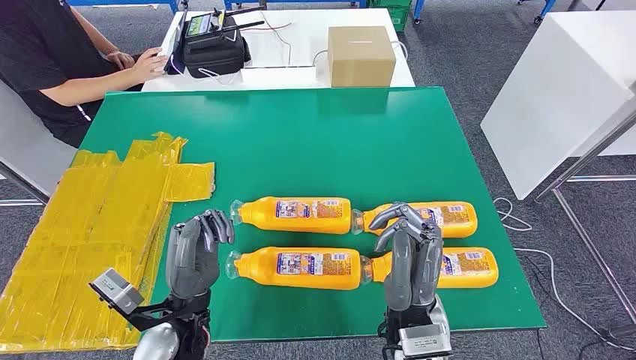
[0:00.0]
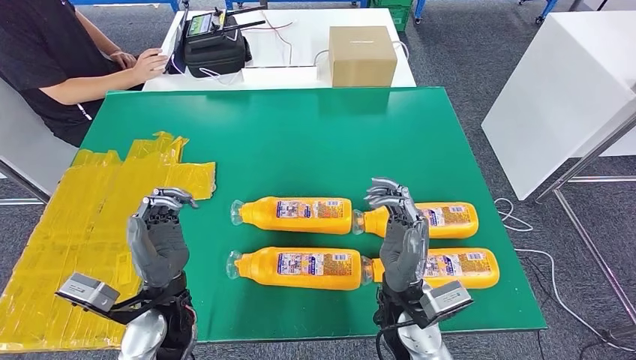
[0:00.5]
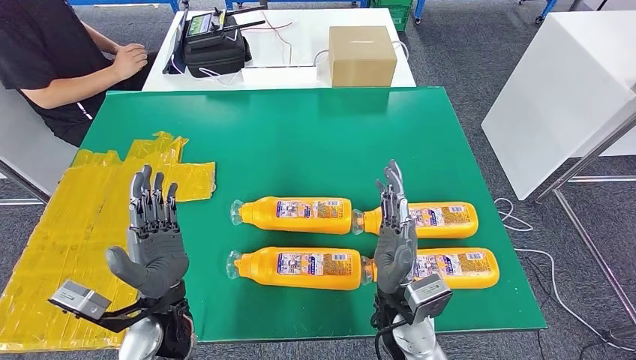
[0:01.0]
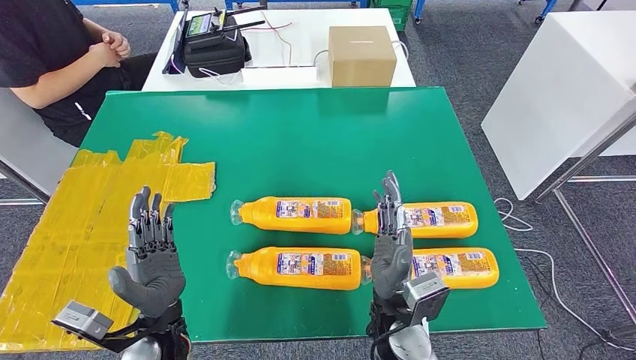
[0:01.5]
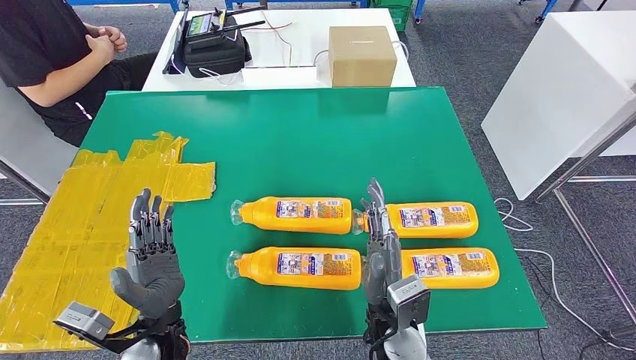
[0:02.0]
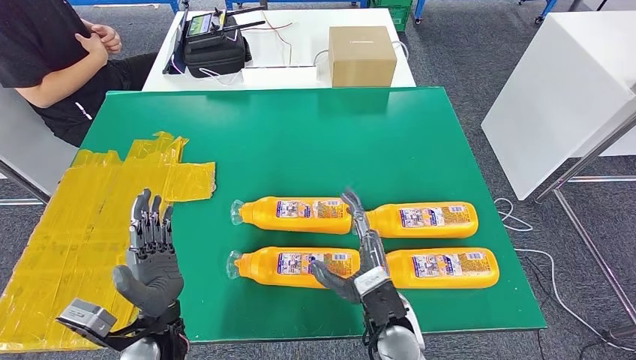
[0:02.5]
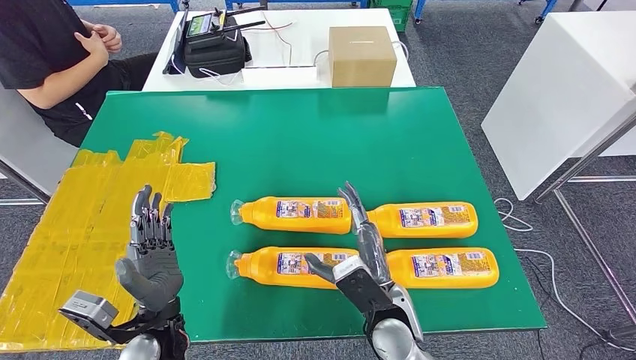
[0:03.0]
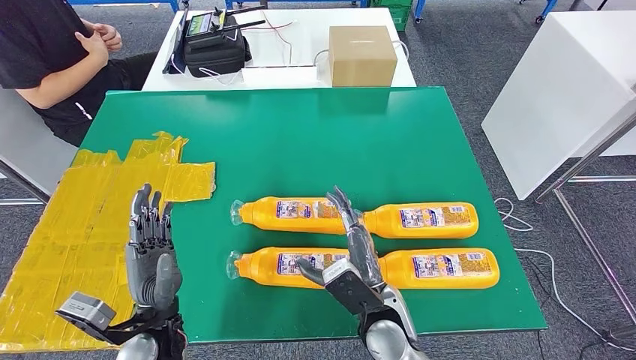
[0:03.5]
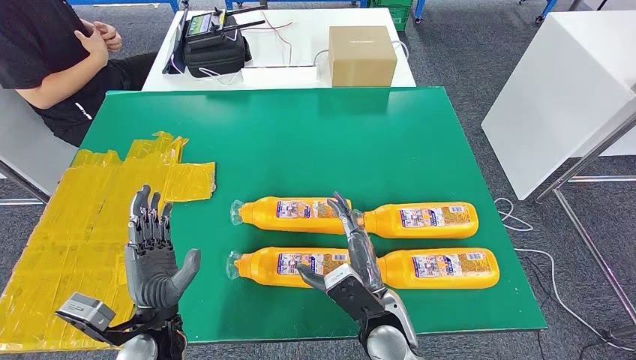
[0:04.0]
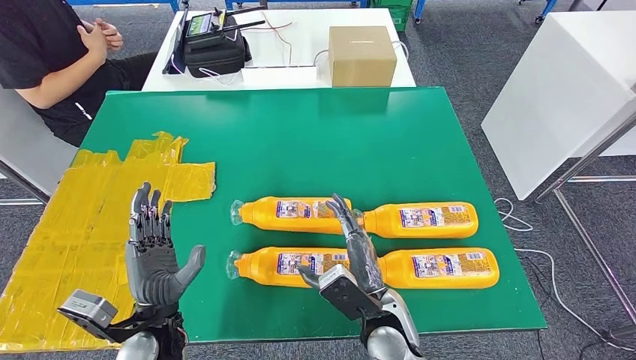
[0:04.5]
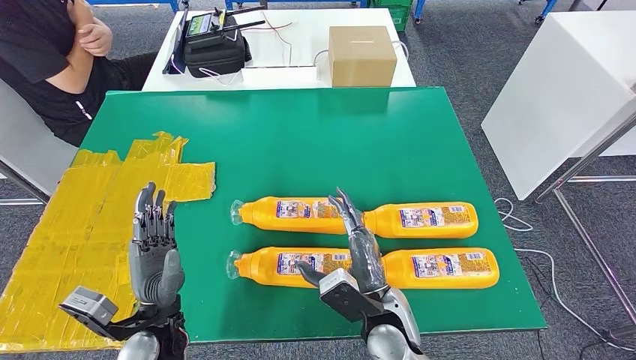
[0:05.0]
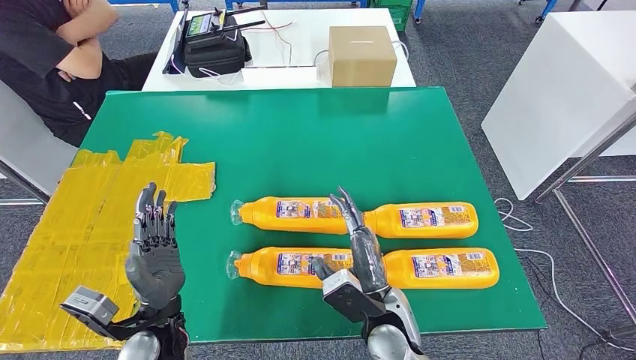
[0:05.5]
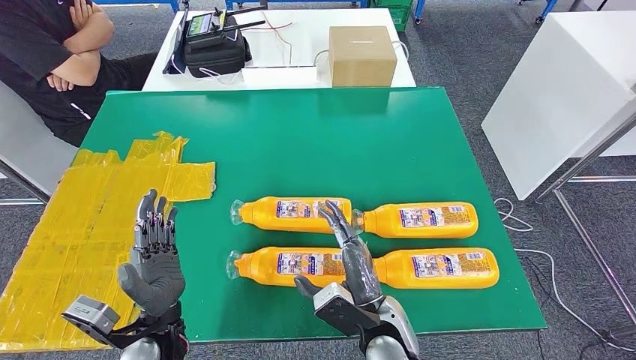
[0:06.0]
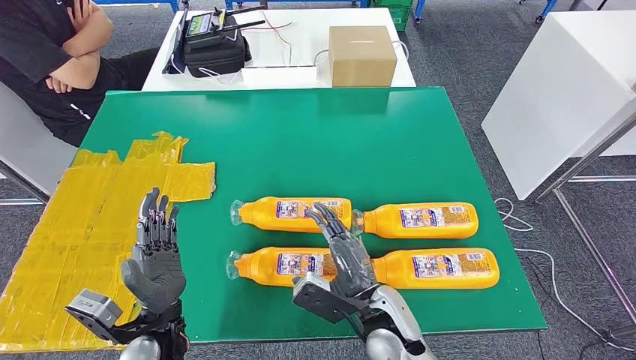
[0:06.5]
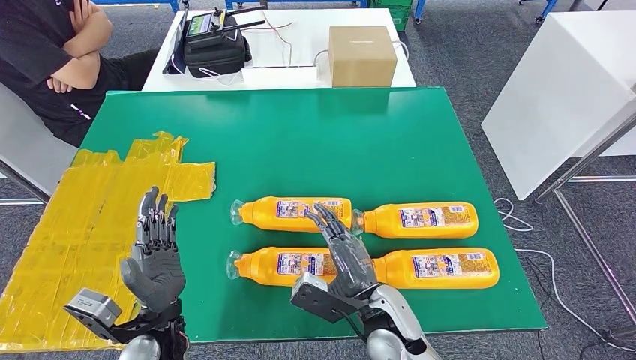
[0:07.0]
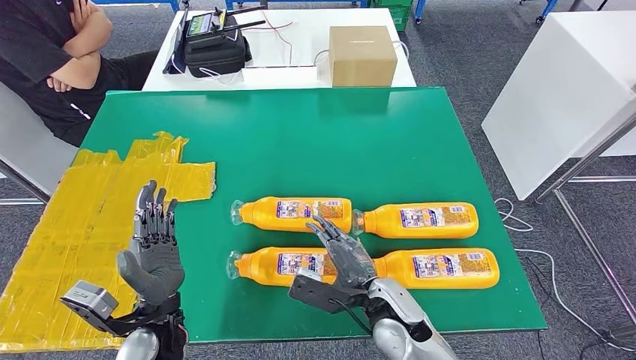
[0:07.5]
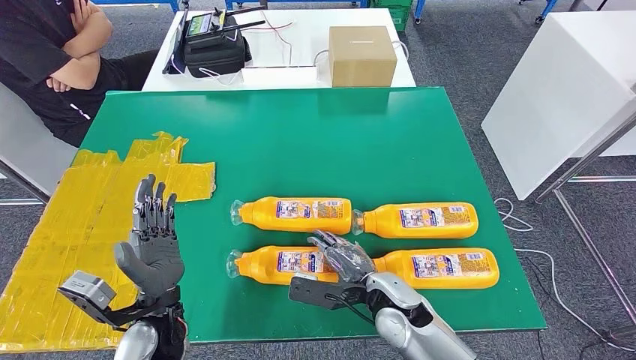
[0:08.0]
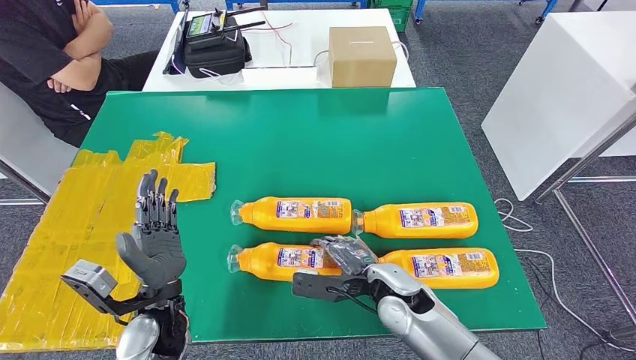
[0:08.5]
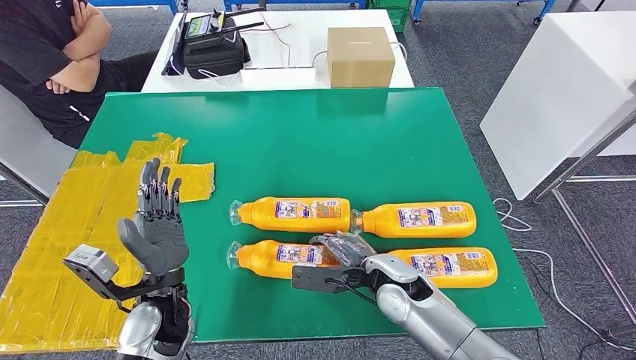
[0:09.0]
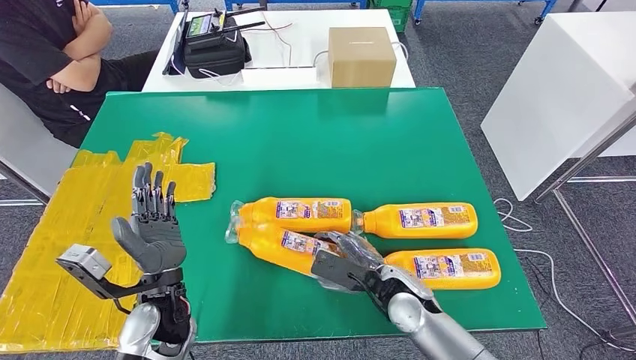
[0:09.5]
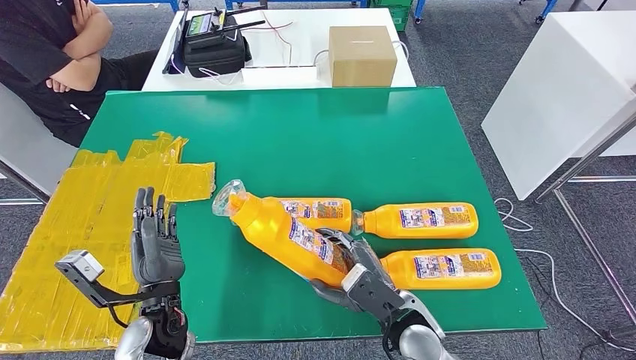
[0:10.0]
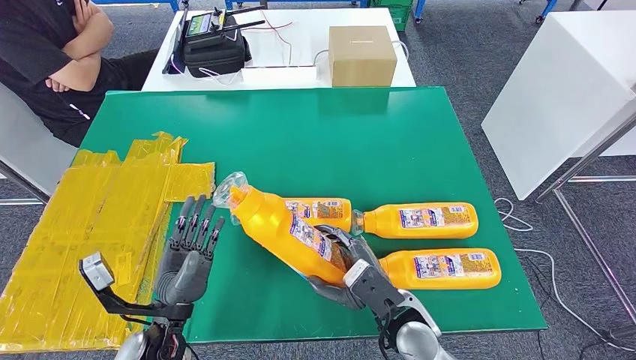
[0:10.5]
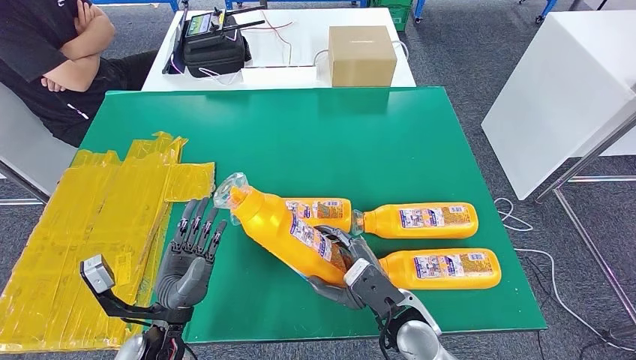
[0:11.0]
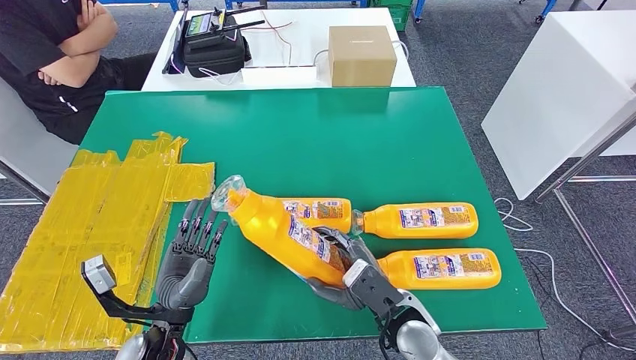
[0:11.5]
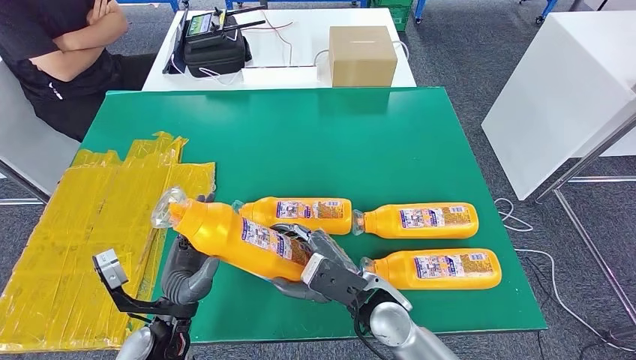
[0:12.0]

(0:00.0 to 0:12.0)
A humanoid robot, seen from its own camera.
Step, 0:00.0 - 0:10.0: Take the bottle from the table.
0:04.0 - 0:06.0: The hands move only a little.
0:10.0 - 0:12.0: The right hand goes approximately 5 cm to the left.

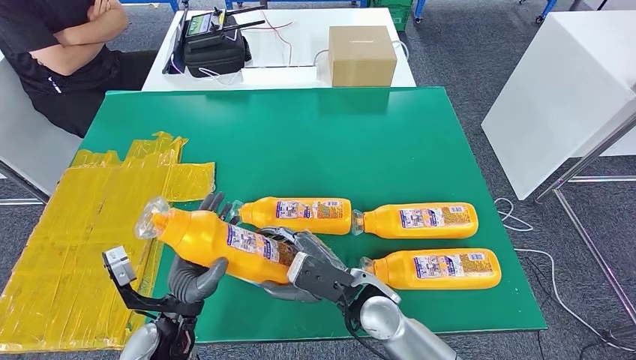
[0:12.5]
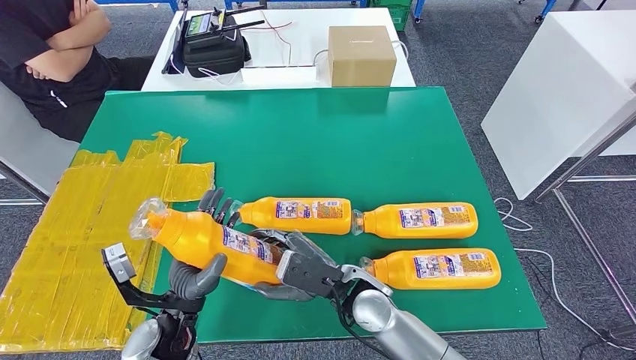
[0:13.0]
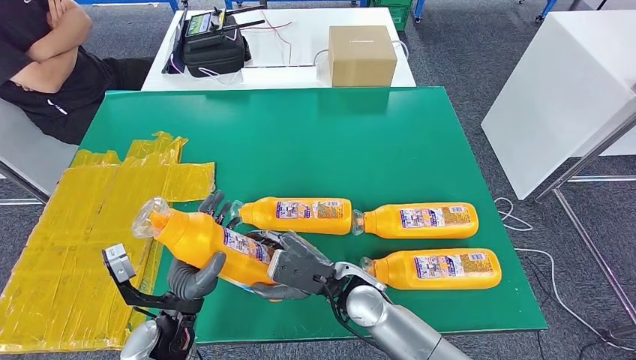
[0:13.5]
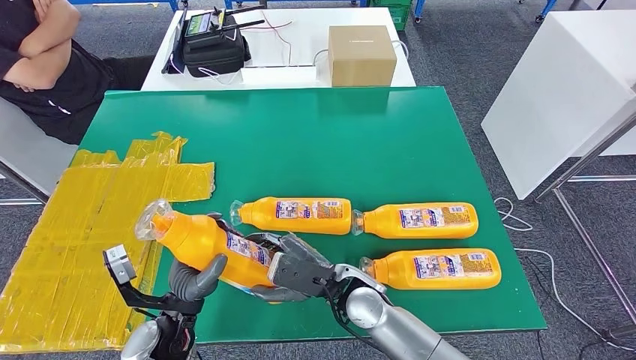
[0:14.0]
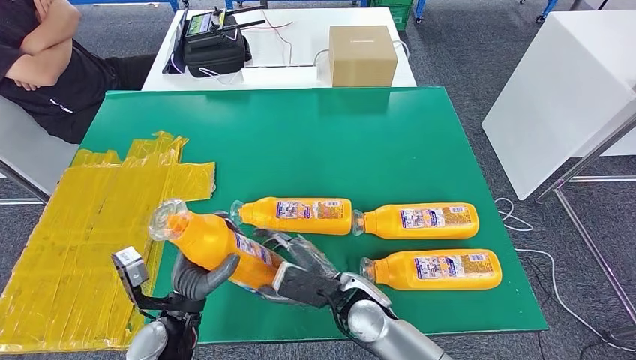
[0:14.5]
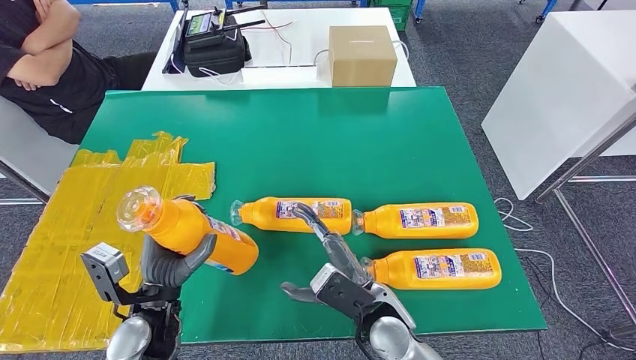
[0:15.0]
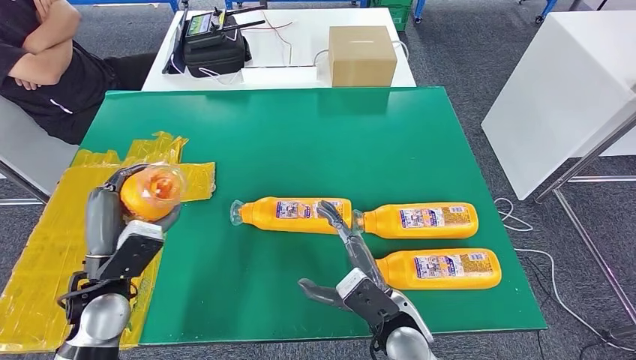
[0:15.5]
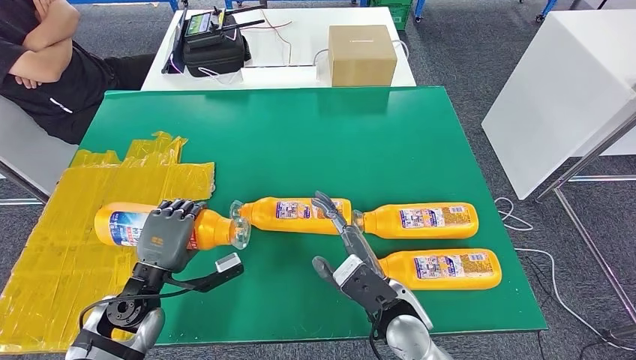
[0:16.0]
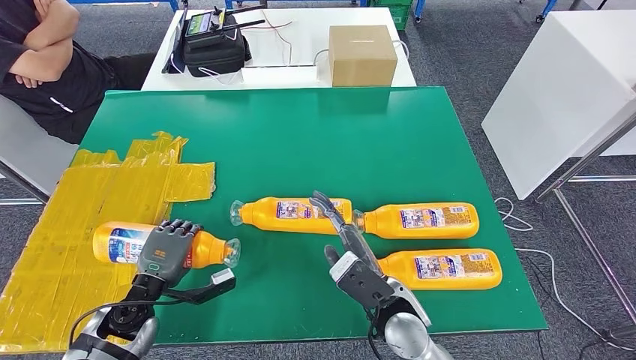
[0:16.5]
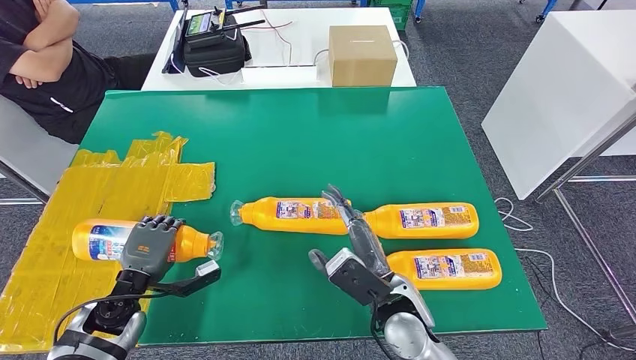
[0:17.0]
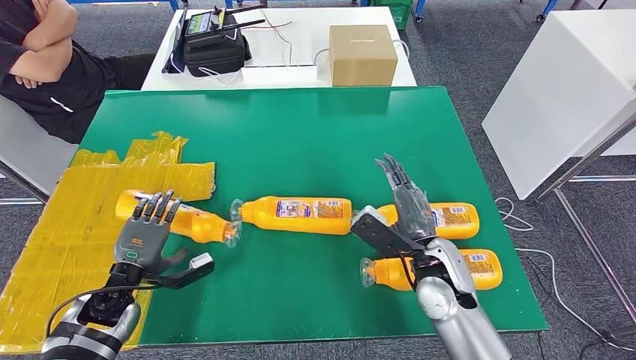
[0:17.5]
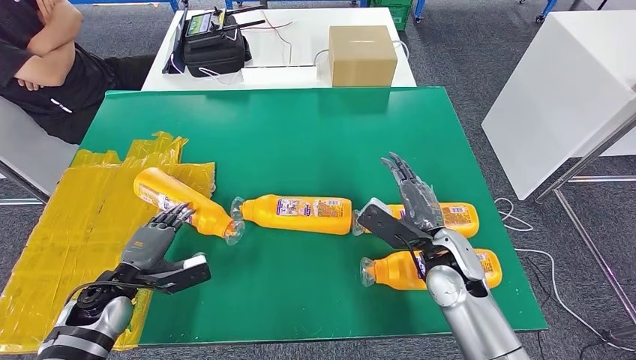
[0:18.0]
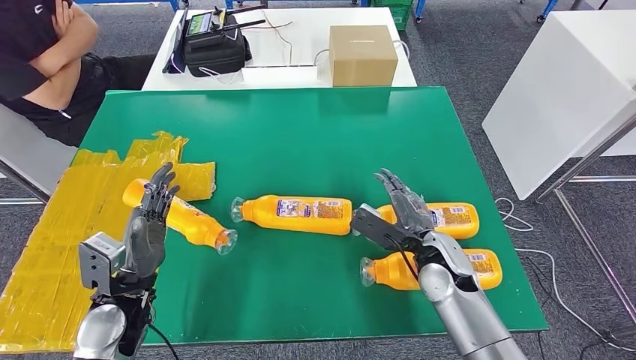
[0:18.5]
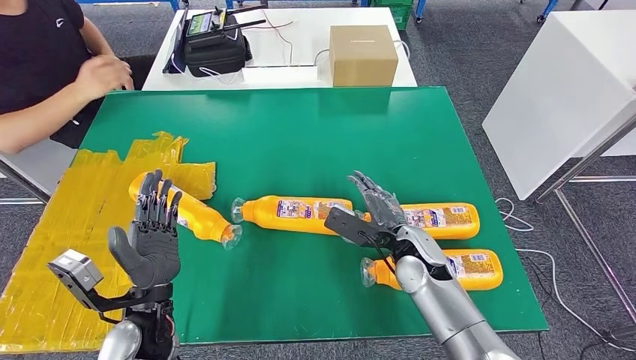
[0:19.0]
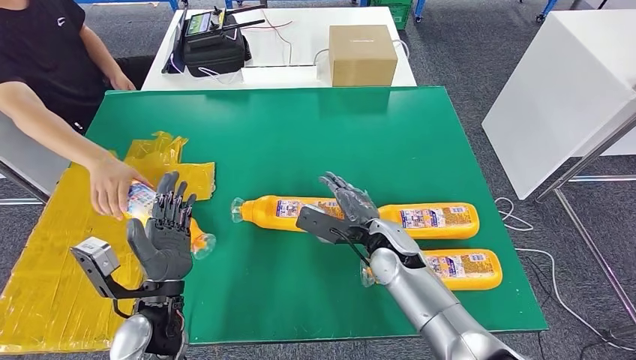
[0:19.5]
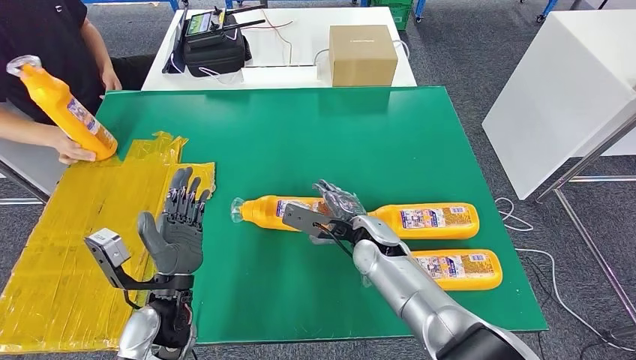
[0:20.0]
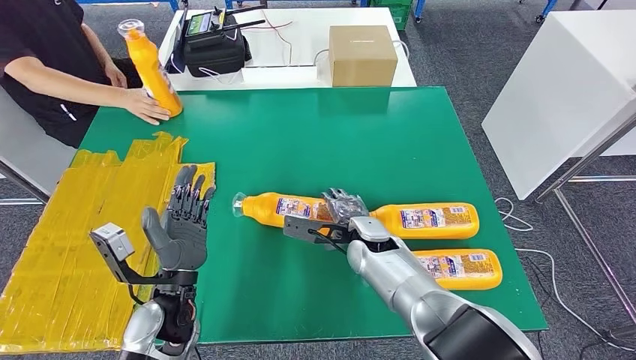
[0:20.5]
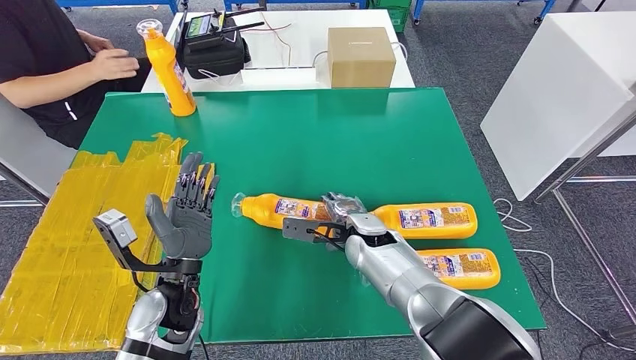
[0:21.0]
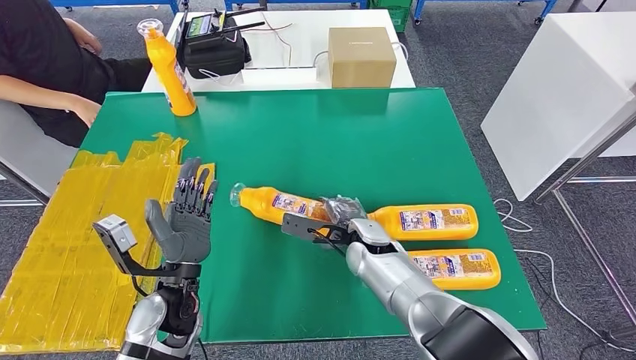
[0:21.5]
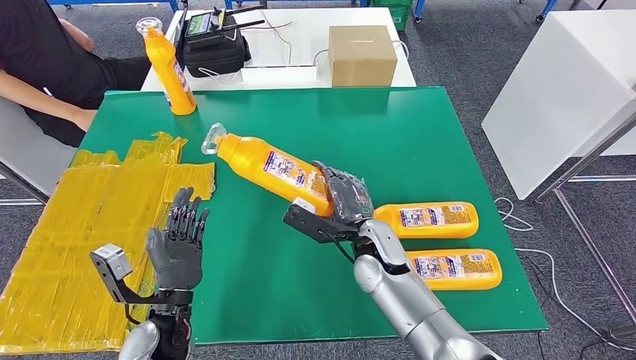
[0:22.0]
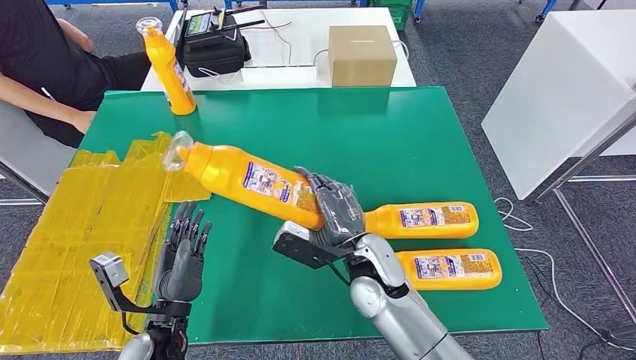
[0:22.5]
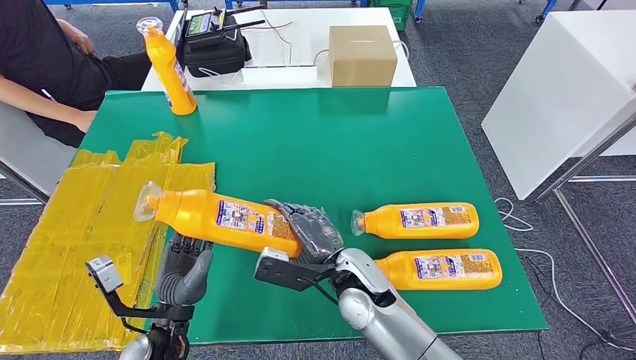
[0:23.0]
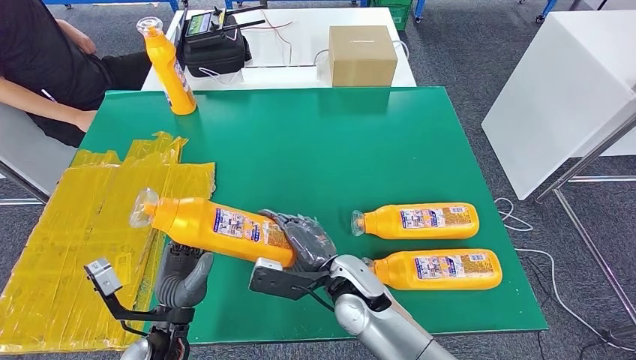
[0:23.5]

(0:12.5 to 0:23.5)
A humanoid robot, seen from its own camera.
Step, 0:12.5 - 0:16.5: Flip the bottle to face forward.
Step, 0:17.0 - 0:23.0: Pick up the bottle from the table.
0:12.5 - 0:14.5: The hands make only small movements.
0:14.5 - 0:16.0: The right hand heads to the right, covering some 5 cm, while the left hand goes about 5 cm to the left.
0:16.0 - 0:18.0: The right hand shifts some 10 cm to the right and forward, while the left hand heads to the left, covering about 5 cm.
